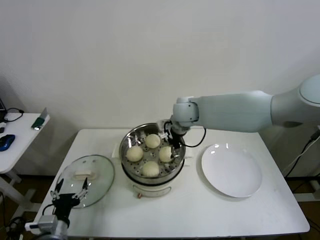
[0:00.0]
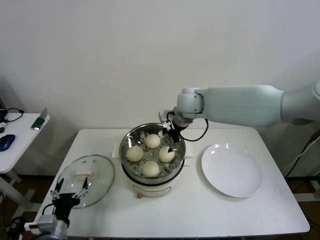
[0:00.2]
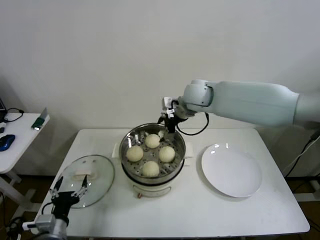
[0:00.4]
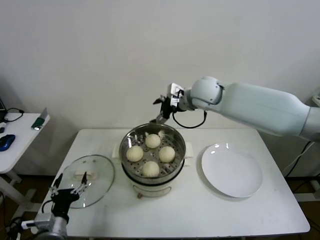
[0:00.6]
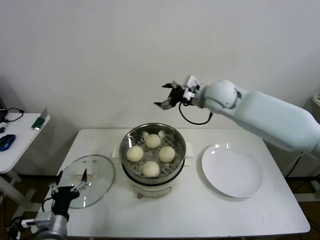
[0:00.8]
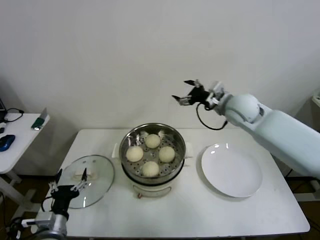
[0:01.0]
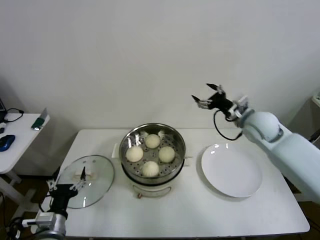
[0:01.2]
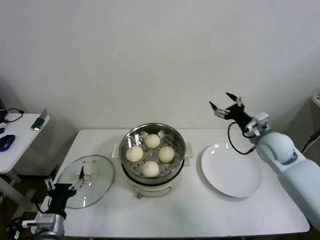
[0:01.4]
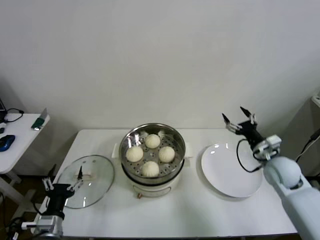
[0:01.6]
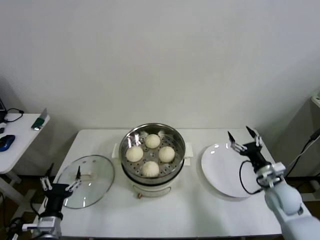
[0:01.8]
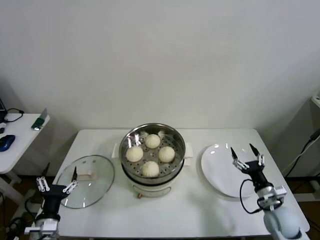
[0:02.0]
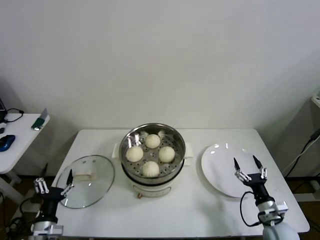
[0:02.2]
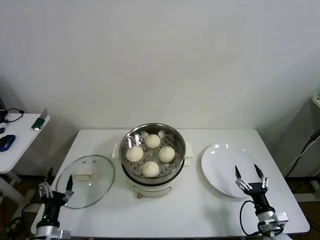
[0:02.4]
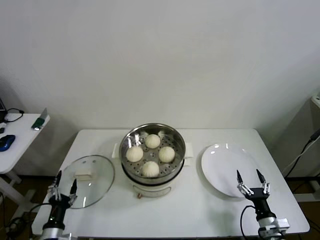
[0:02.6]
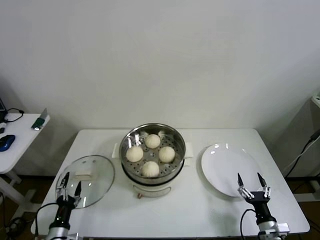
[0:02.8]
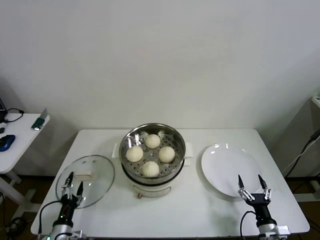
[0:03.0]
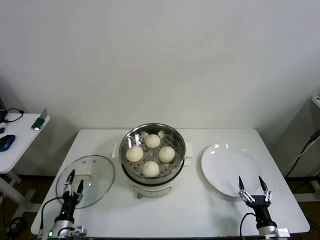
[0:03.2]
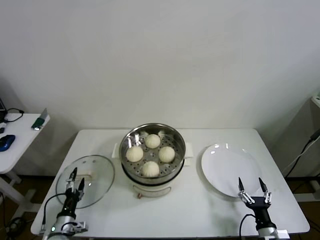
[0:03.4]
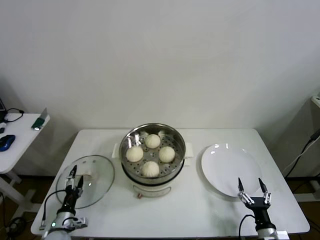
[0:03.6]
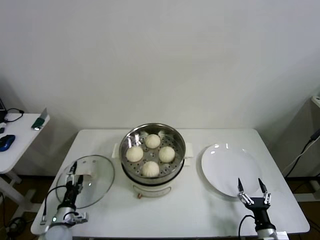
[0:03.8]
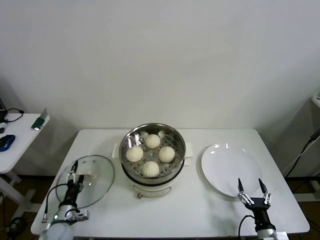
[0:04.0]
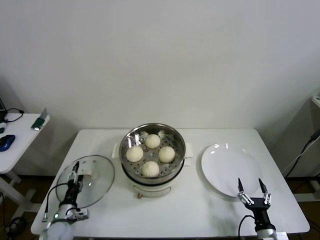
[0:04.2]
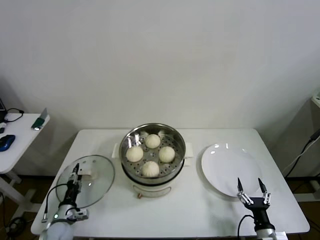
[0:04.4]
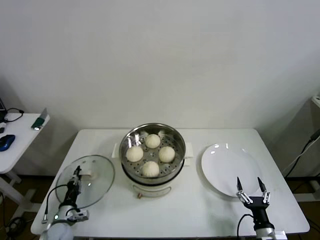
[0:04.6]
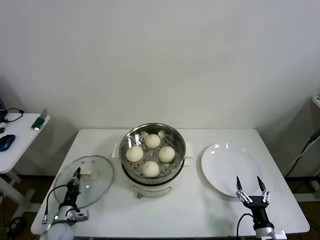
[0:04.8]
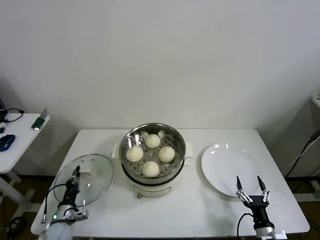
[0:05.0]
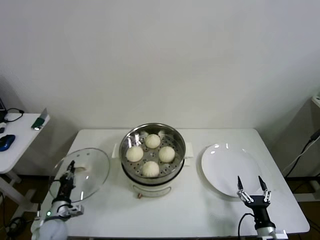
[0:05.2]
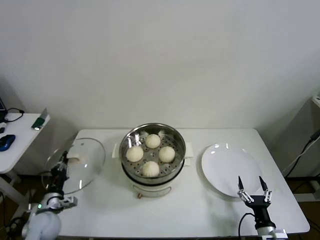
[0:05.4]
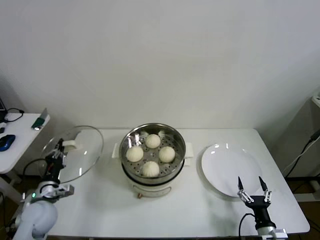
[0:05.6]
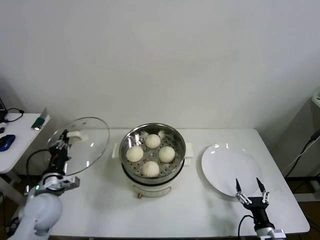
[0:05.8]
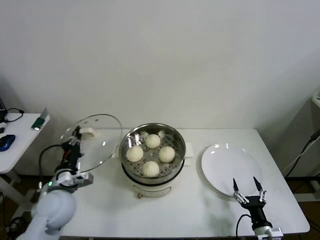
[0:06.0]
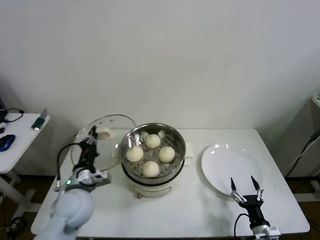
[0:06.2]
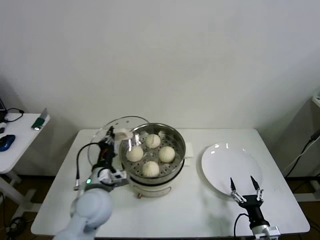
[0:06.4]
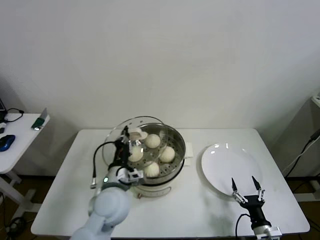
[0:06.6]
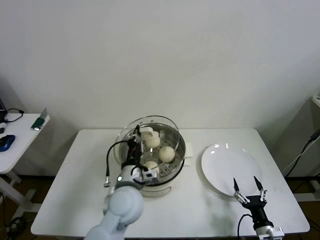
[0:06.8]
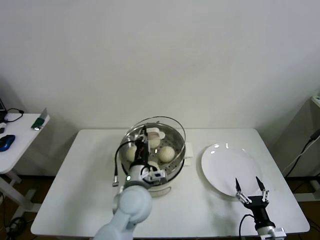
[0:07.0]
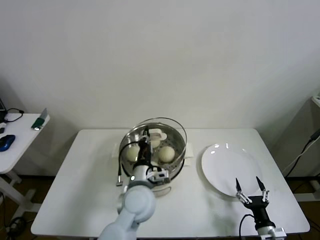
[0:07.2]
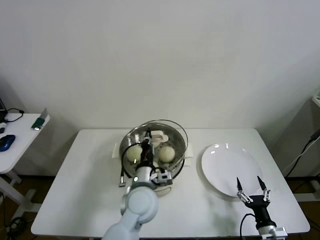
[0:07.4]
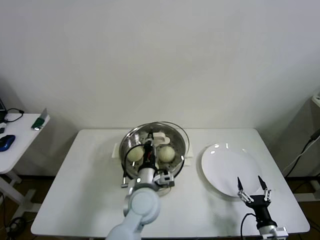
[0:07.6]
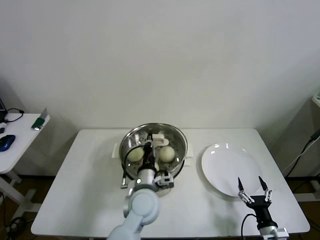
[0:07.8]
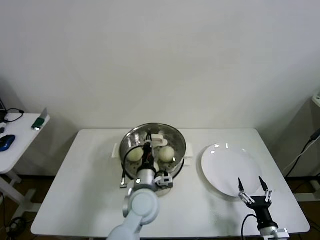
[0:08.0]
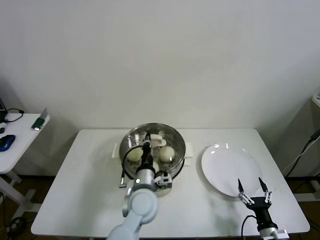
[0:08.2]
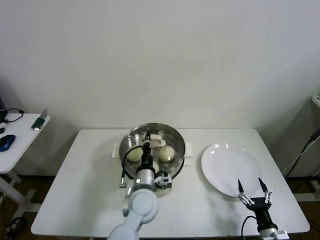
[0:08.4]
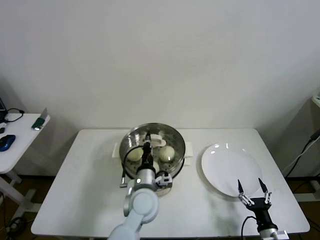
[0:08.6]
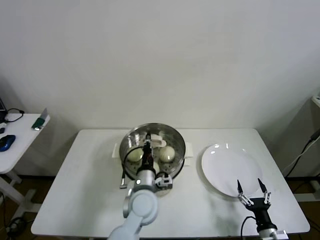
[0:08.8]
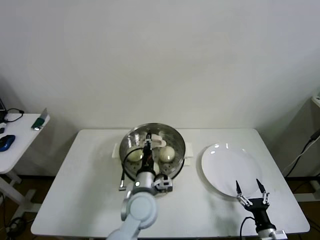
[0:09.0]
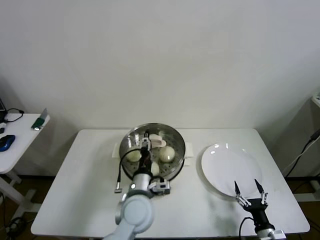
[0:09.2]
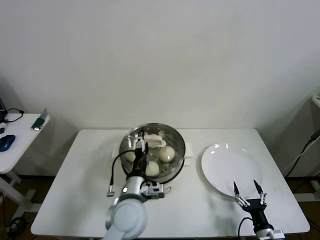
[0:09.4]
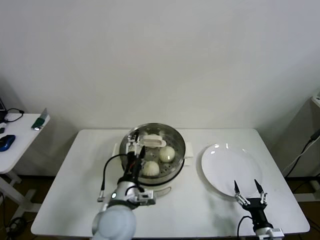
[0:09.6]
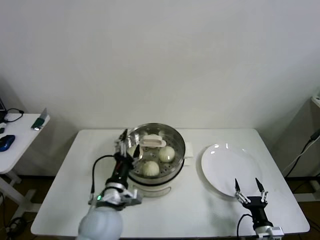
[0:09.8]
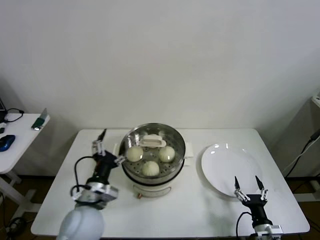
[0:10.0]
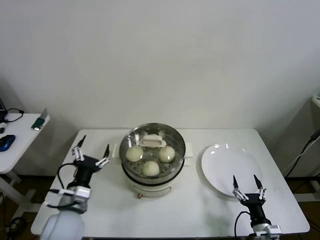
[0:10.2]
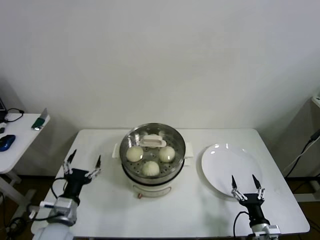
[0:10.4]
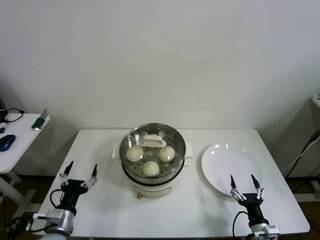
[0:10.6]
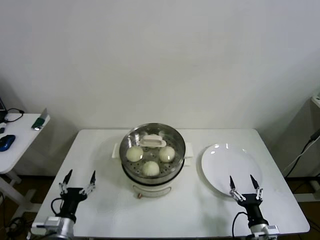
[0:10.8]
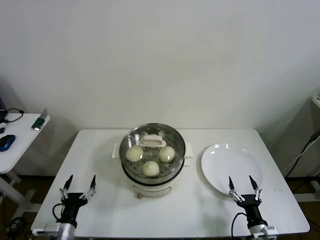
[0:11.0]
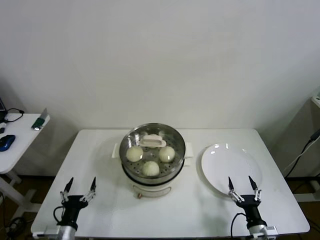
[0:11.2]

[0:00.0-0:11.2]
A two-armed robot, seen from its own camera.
Step, 0:00.2 to 0:04.6: Grasp the pot lid with left gripper.
Step, 0:05.0 to 0:09.2: Place the pot lid on the steamer with left gripper.
0:00.0 to 0:01.6: The right gripper is displaced to the right, downward and backward by roughly 35 cm.
0:01.6 to 0:03.2: The right gripper goes some 30 cm backward and downward. Meanwhile the left gripper is displaced downward by some 15 cm.
0:03.2 to 0:04.8: The left gripper heads forward, covering approximately 5 cm, and closes up.
0:04.8 to 0:06.4: The left gripper goes approximately 30 cm upward and to the right.
0:06.4 to 0:08.0: The left gripper moves to the right, roughly 15 cm.
0:08.0 to 0:09.6: The left gripper travels backward and to the left by some 5 cm, and opens up.
0:09.6 to 0:11.2: The left gripper travels to the left, downward and backward by about 25 cm.

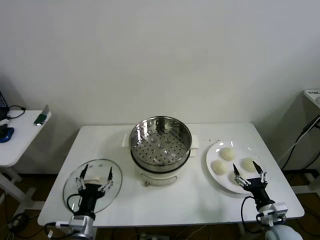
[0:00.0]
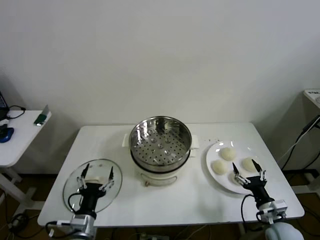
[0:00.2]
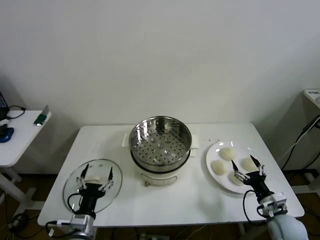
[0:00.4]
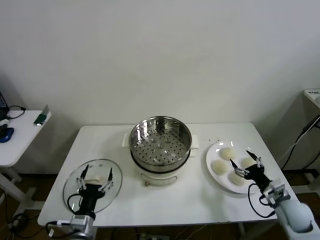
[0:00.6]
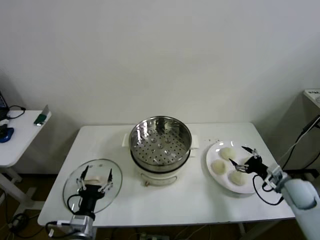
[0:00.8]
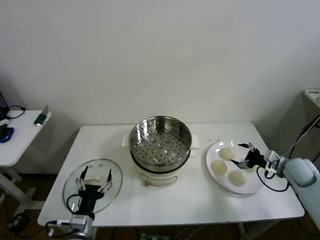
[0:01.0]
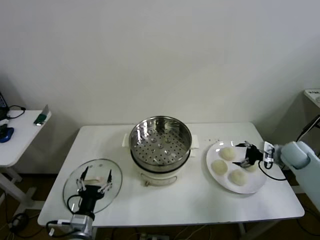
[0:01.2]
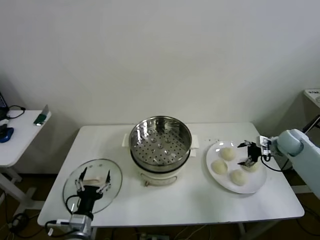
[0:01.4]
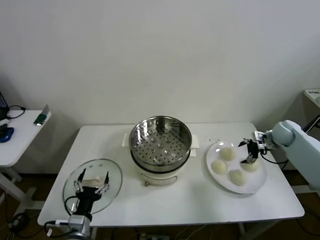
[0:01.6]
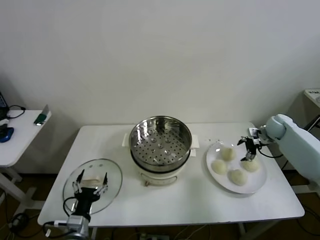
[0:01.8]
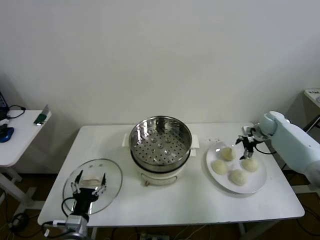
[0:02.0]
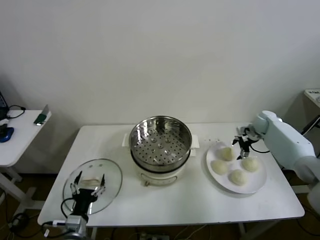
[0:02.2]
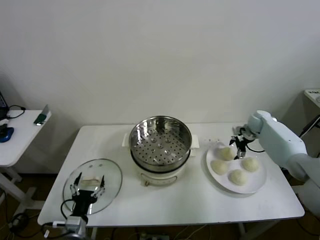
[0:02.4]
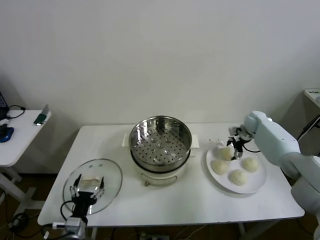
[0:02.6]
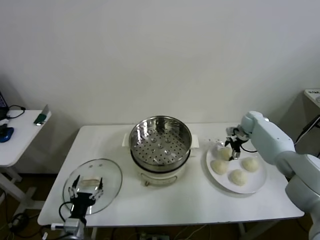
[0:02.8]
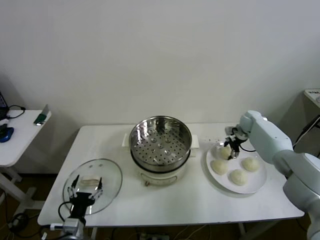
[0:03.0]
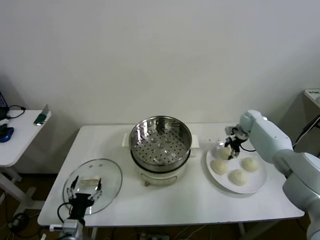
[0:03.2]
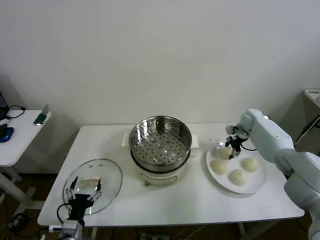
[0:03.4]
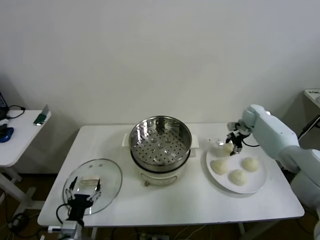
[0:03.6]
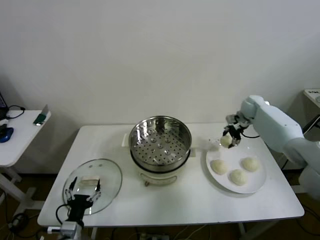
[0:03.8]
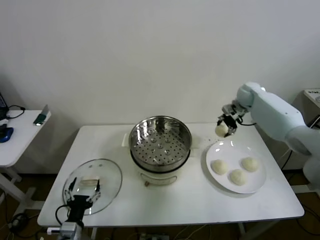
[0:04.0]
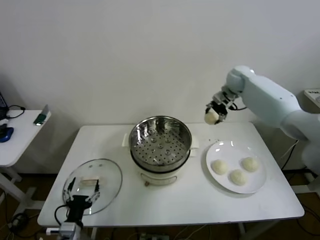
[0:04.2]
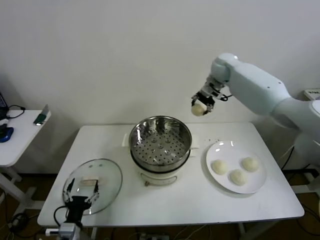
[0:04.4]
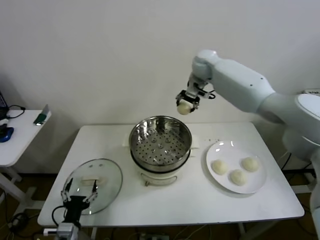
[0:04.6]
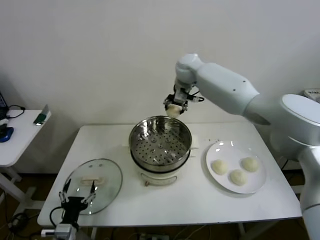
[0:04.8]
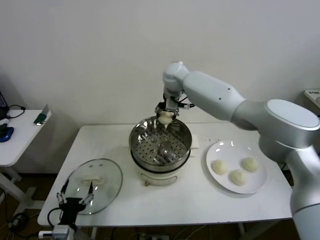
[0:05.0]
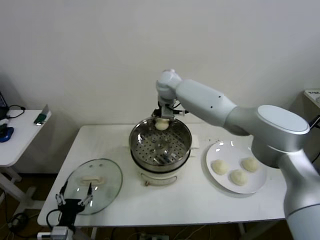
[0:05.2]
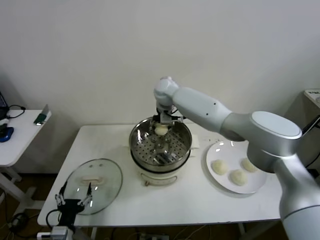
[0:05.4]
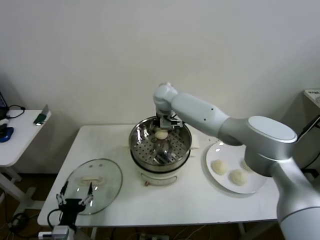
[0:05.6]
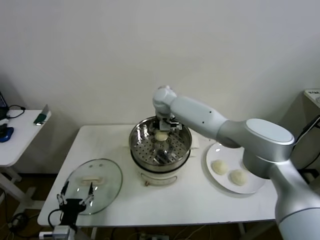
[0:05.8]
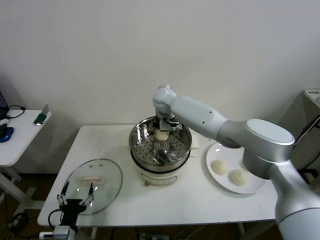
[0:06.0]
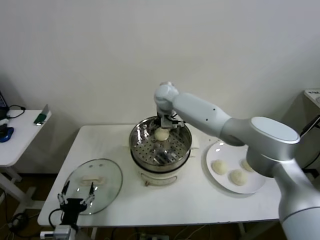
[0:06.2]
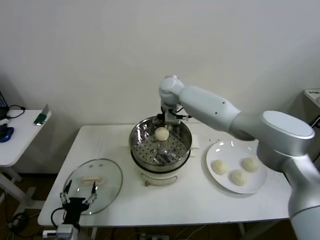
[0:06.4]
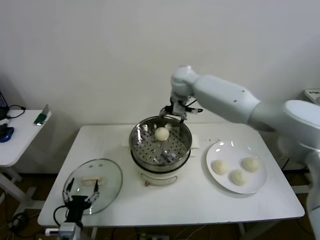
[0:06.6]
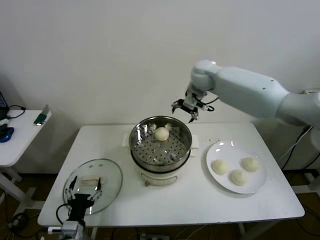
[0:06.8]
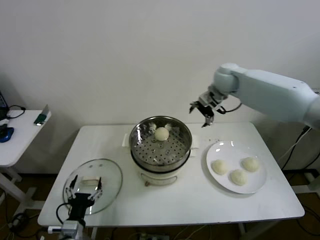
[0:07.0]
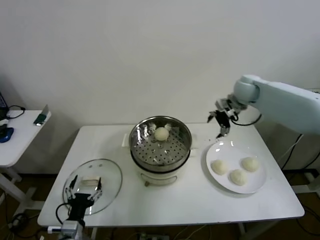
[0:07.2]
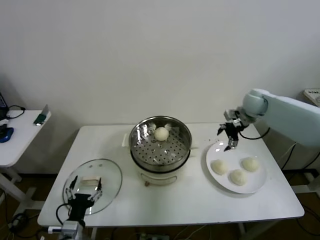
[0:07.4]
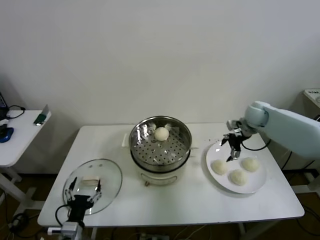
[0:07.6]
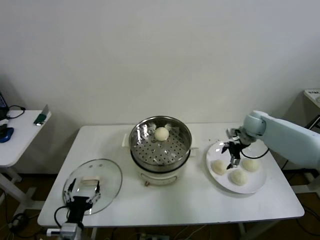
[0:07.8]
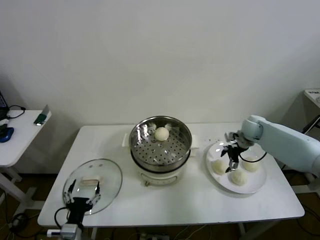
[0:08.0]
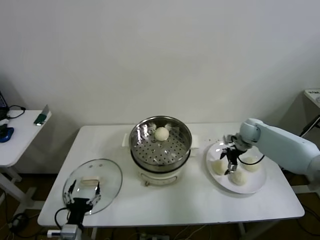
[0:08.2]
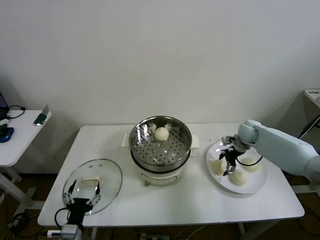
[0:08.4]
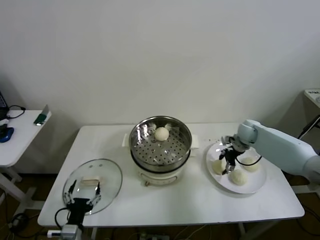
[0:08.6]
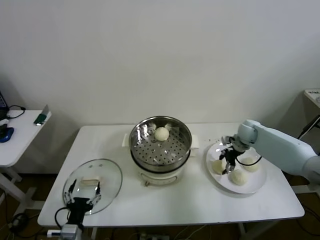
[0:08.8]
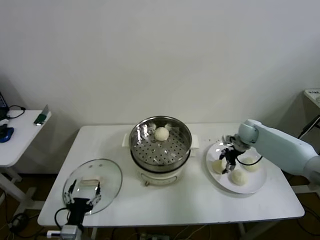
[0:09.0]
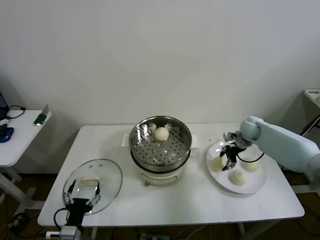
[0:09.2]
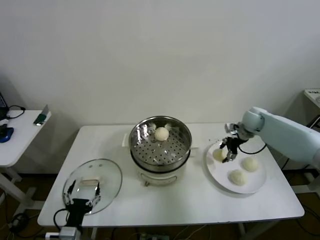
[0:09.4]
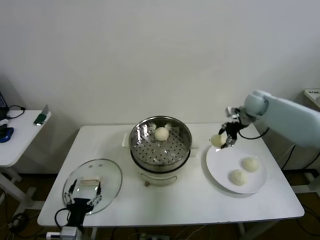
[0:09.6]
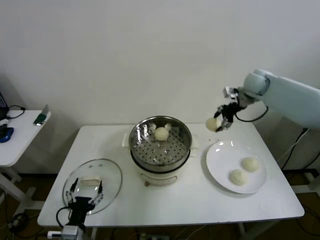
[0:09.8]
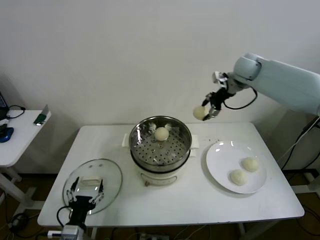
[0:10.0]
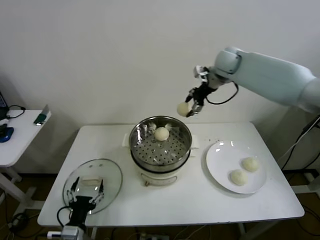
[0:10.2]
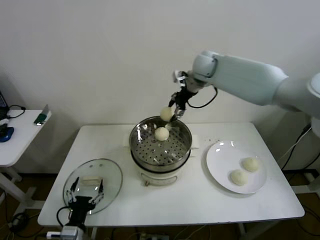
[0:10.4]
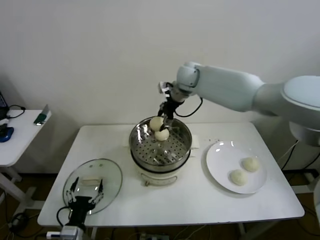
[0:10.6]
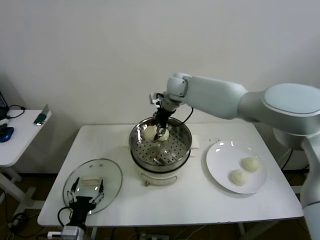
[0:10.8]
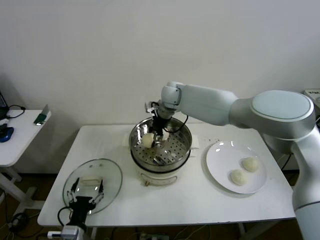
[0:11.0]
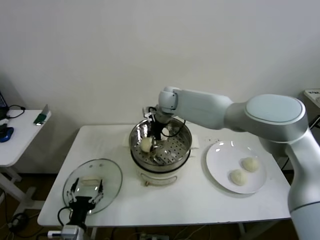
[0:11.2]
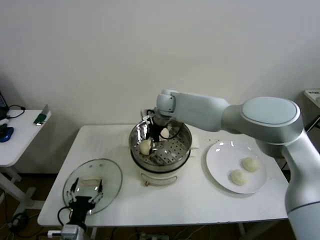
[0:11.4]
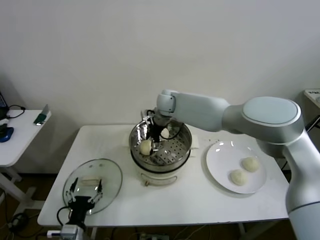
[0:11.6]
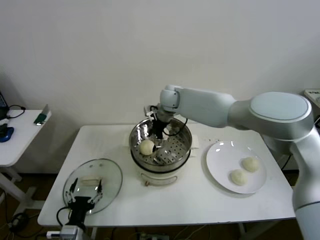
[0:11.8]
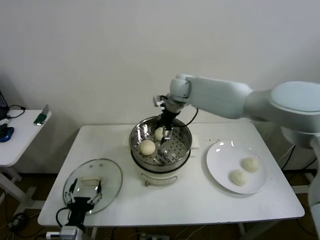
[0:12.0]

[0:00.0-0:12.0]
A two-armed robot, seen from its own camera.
Step, 0:00.0 to 0:03.2: Grasp the baozi in the plate with right gripper.
Step, 0:03.6 to 0:06.2: Place the baozi on the steamer with right gripper.
Step, 0:06.4 to 0:08.6: Grasp the baozi in the plate with right gripper.
Step, 0:08.8 to 0:11.8: Place the baozi on the steamer with right gripper.
0:01.6 to 0:03.0: The right gripper heads forward and to the left, covering about 10 cm, and closes its fingers.
0:03.0 to 0:04.4: The right gripper shifts about 35 cm upward and to the left.
0:04.4 to 0:06.0: The right gripper heads to the left and downward, covering approximately 20 cm, and opens.
0:06.0 to 0:07.6: The right gripper travels to the right by approximately 35 cm.
0:07.6 to 0:09.0: The right gripper goes some 5 cm downward, and closes.
0:09.0 to 0:10.4: The right gripper heads upward and to the left, covering approximately 35 cm.
0:10.4 to 0:12.0: The right gripper opens its fingers.
